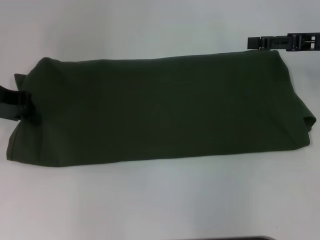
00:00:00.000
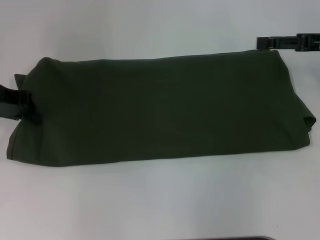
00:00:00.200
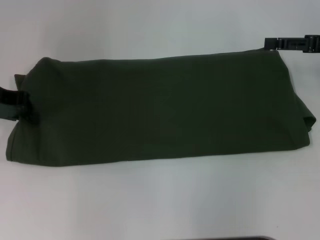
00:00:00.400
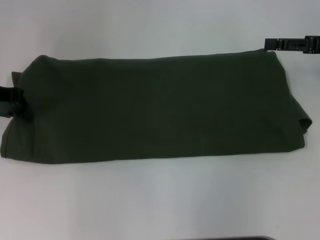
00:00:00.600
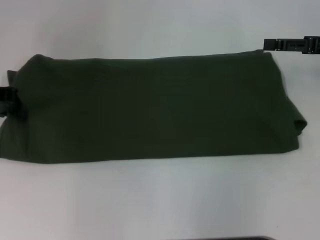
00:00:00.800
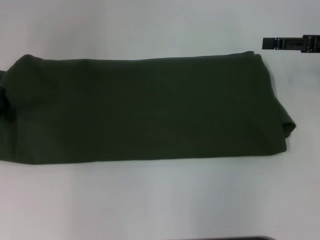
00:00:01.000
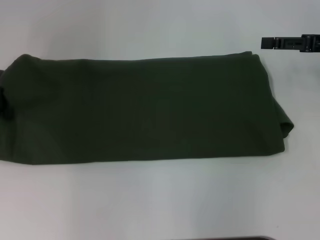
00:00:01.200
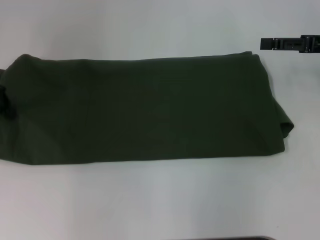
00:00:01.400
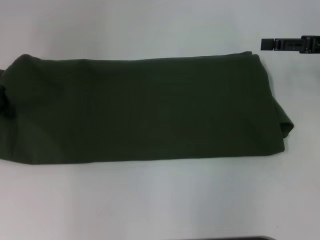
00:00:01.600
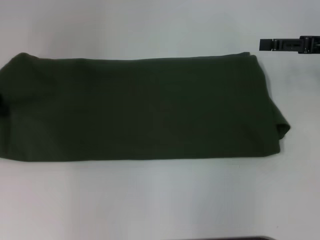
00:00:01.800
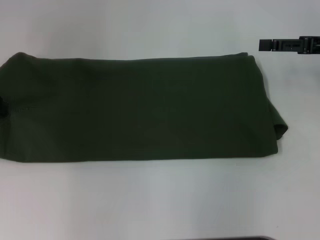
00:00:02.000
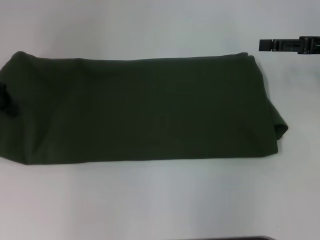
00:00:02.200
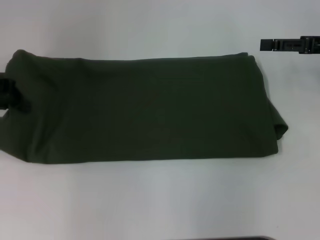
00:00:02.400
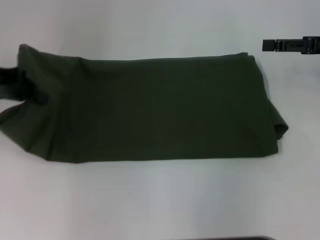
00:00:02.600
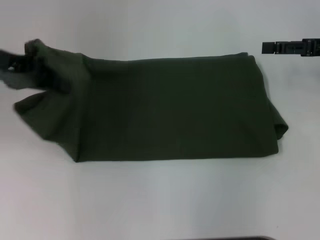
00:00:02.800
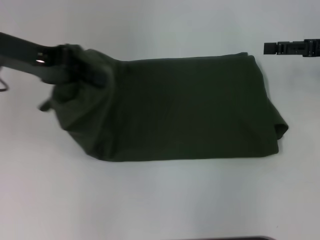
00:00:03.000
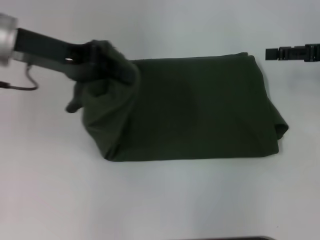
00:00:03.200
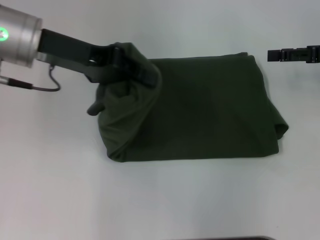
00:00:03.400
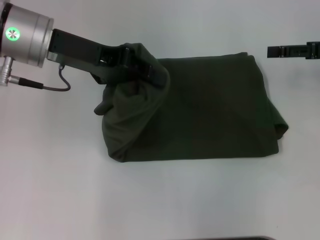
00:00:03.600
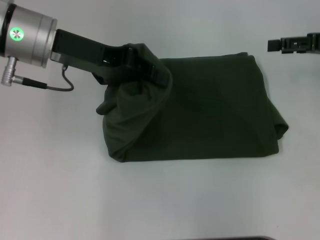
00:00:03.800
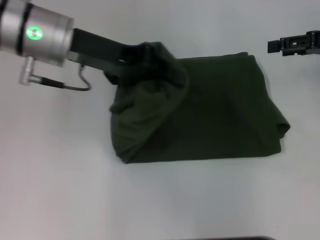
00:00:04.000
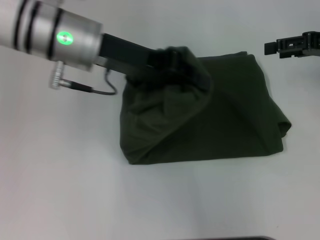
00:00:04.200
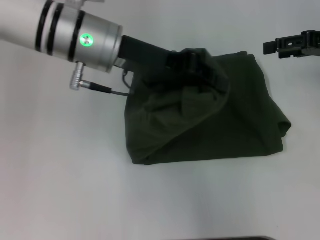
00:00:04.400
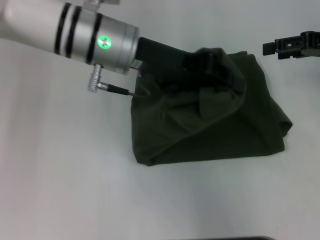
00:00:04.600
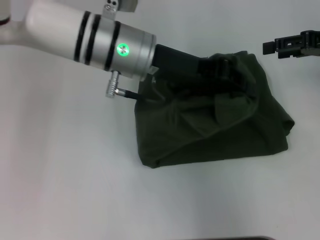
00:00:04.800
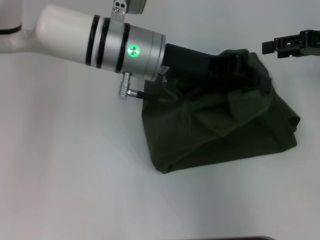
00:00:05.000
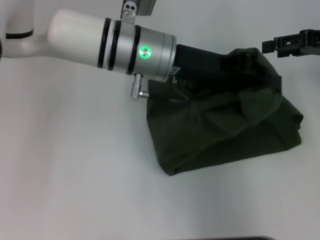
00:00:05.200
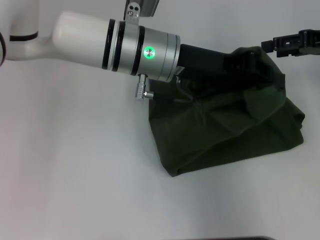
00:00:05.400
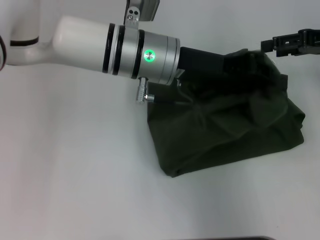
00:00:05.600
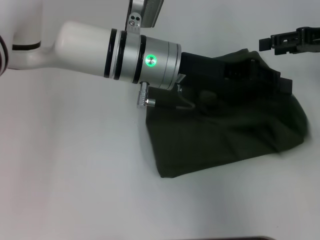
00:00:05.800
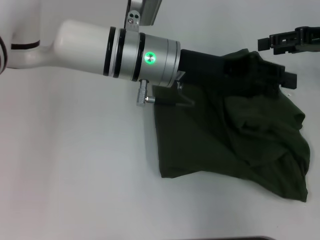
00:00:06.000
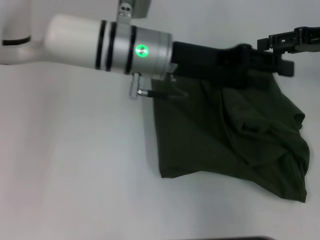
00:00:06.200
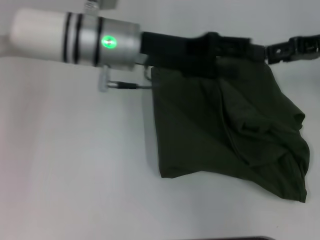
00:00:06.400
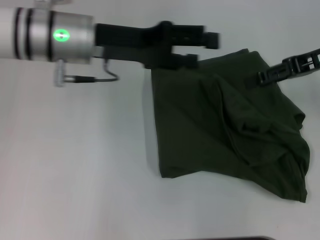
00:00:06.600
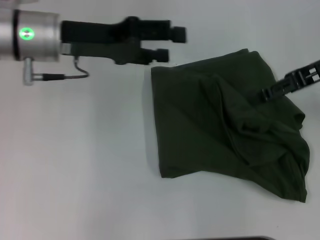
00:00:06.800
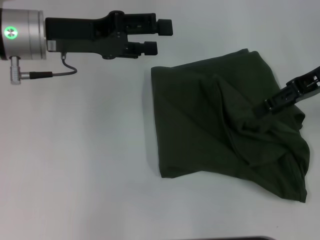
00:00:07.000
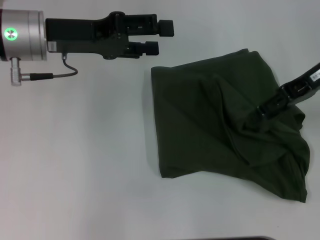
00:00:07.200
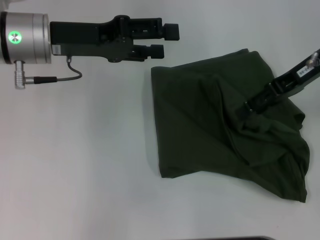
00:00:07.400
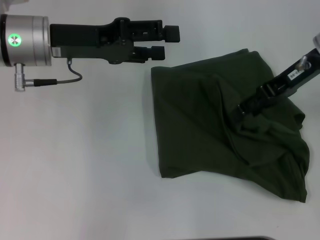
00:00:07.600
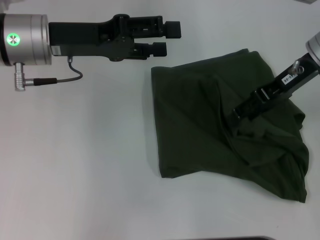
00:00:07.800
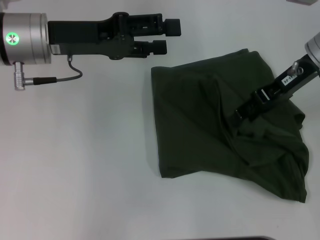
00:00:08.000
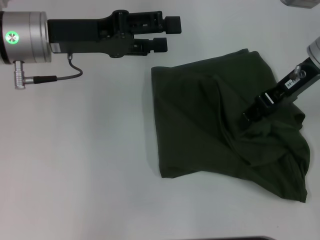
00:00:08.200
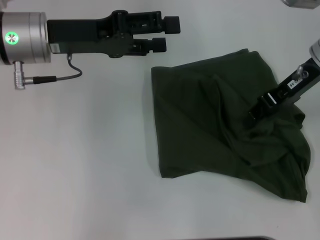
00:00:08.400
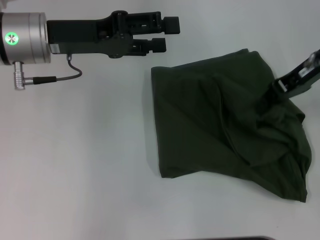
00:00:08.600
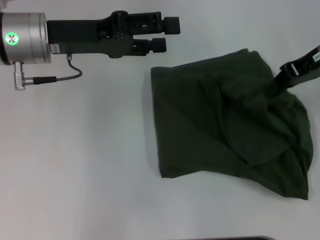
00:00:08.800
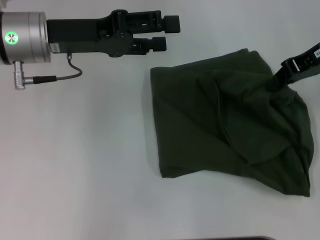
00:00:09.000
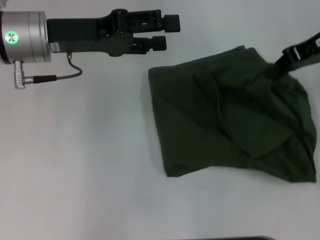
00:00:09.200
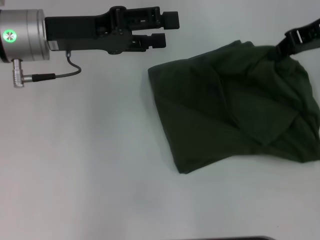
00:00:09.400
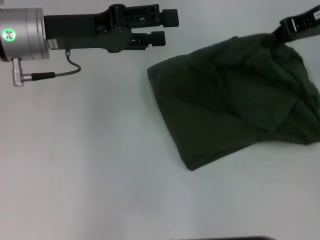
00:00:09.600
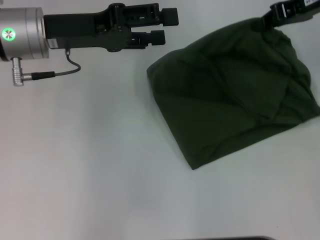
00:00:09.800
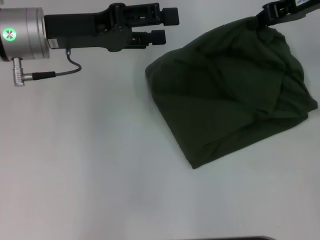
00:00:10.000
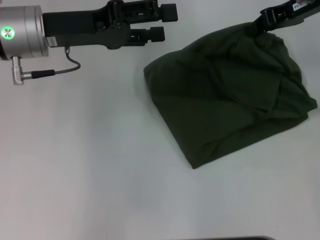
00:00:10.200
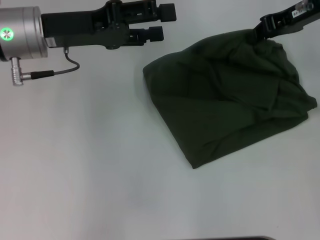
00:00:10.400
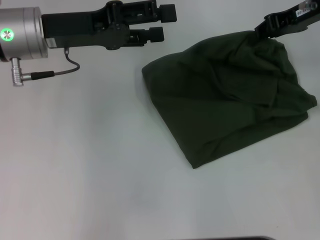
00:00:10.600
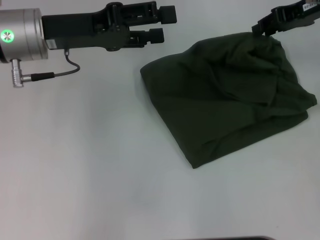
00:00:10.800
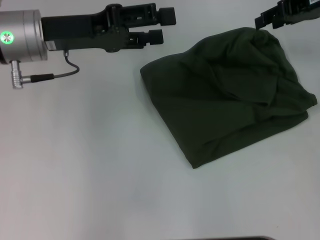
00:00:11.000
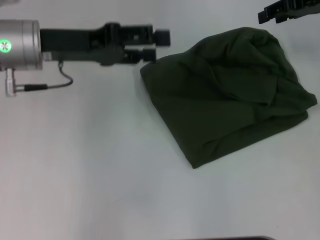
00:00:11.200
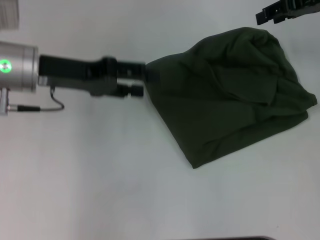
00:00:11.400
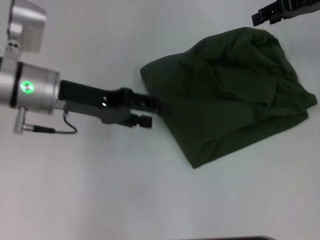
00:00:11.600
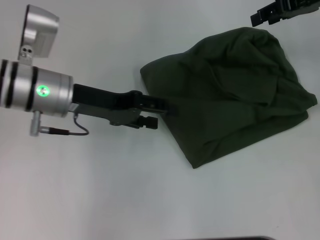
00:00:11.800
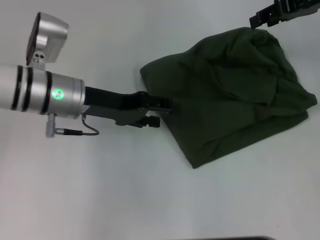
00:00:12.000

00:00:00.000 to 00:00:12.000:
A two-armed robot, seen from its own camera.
Step, 00:00:00.000 to 00:00:06.600: Fold the clothes with your left hand.
00:00:00.000 to 00:00:01.600: There are only small adjustments of the grippers.
00:00:01.600 to 00:00:03.000: The left gripper goes approximately 5 cm to the right.
00:00:03.000 to 00:00:04.400: The left gripper moves to the right, approximately 15 cm.
00:00:04.400 to 00:00:06.000: The left gripper goes some 5 cm to the right.
00:00:06.000 to 00:00:07.600: The right gripper is displaced to the left by some 10 cm. Meanwhile the left gripper goes about 15 cm to the left, and opens its fingers.
00:00:07.600 to 00:00:09.000: The right gripper closes up.
00:00:10.400 to 00:00:12.000: The right gripper opens its fingers. The left gripper moves downward, some 5 cm.

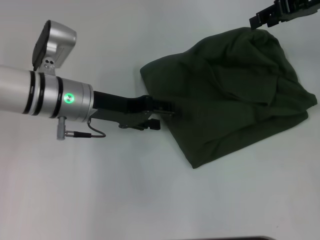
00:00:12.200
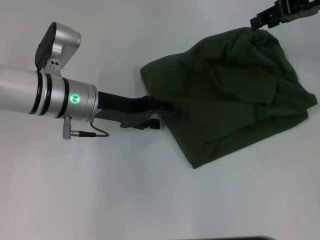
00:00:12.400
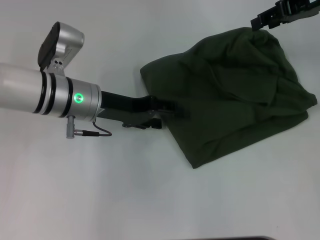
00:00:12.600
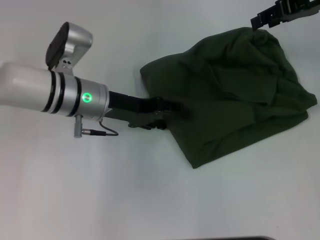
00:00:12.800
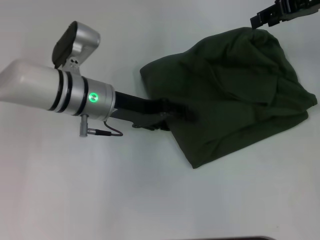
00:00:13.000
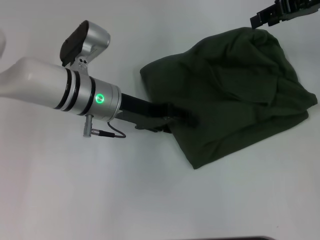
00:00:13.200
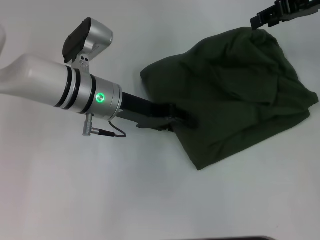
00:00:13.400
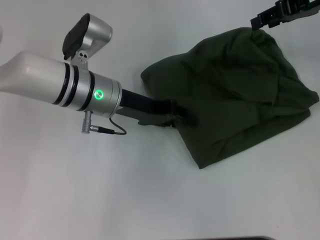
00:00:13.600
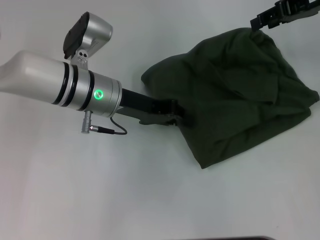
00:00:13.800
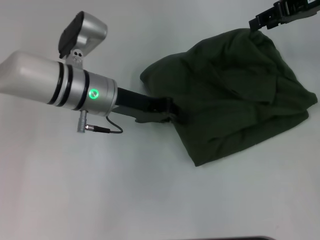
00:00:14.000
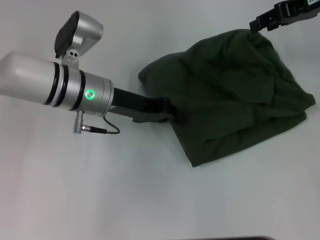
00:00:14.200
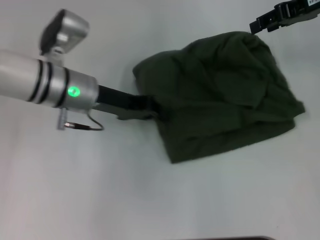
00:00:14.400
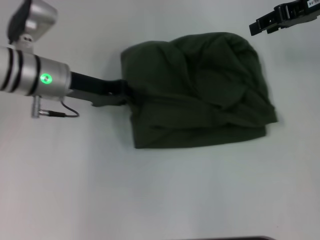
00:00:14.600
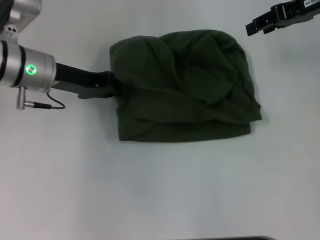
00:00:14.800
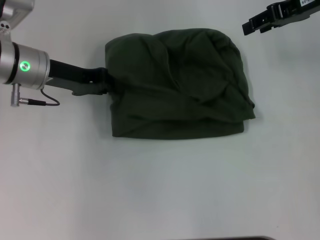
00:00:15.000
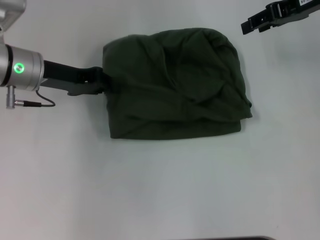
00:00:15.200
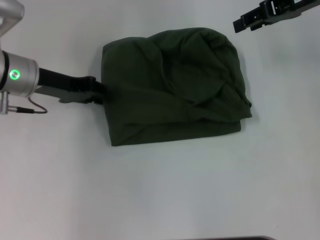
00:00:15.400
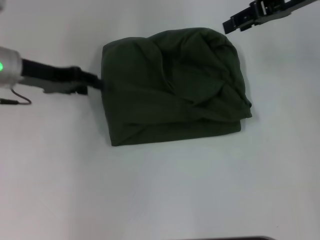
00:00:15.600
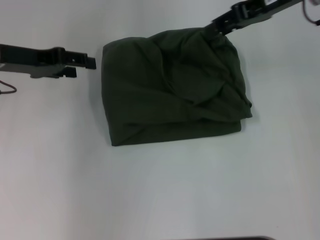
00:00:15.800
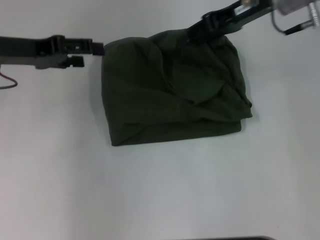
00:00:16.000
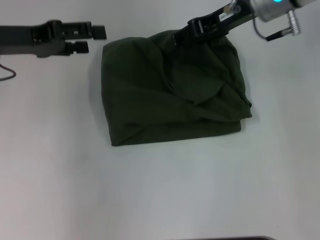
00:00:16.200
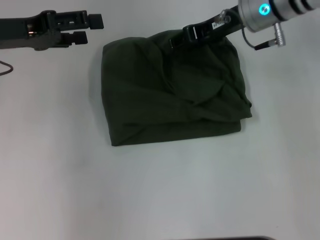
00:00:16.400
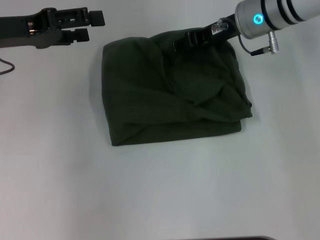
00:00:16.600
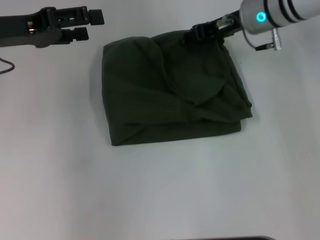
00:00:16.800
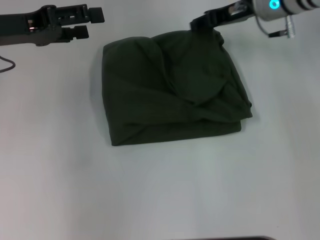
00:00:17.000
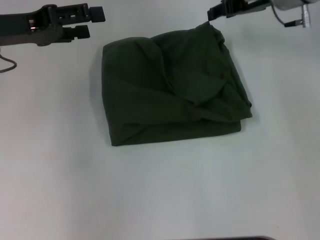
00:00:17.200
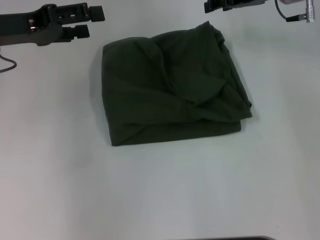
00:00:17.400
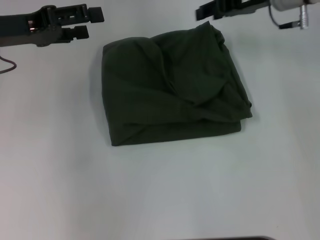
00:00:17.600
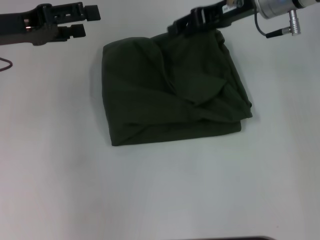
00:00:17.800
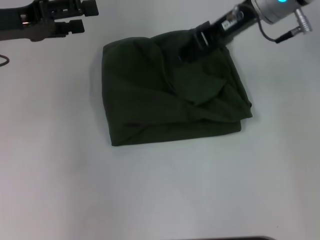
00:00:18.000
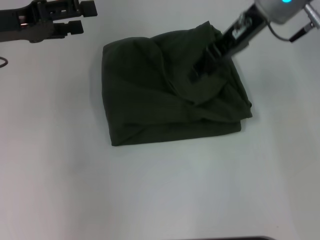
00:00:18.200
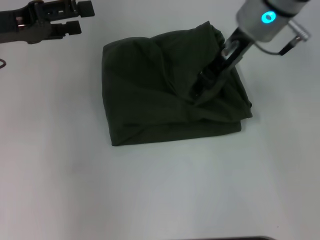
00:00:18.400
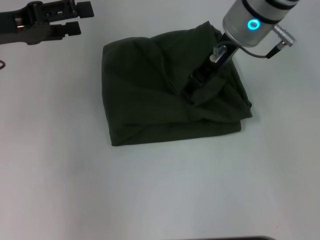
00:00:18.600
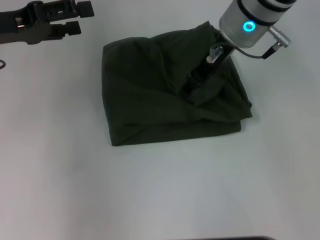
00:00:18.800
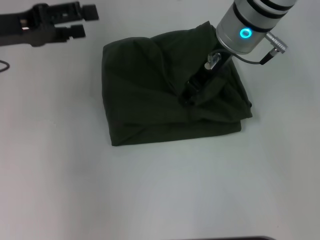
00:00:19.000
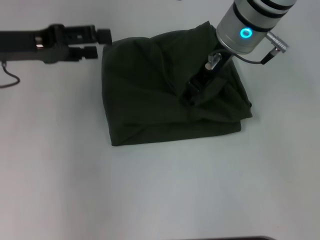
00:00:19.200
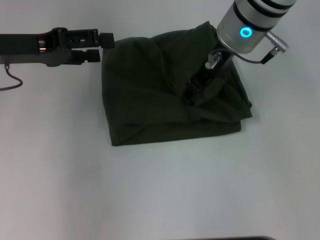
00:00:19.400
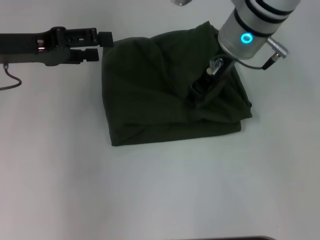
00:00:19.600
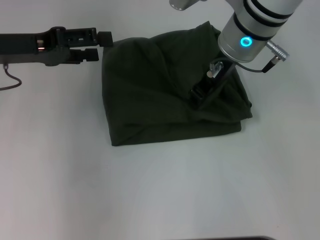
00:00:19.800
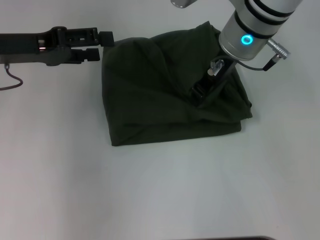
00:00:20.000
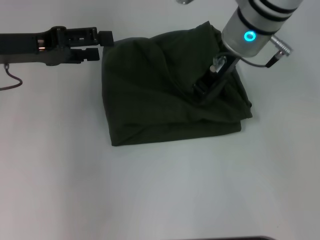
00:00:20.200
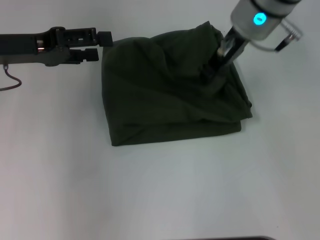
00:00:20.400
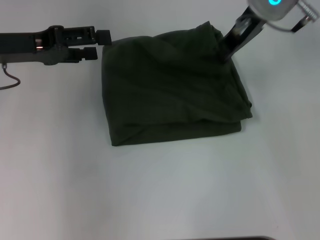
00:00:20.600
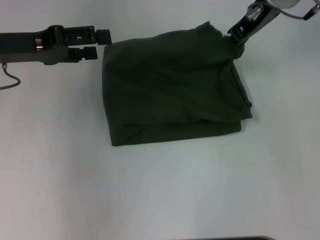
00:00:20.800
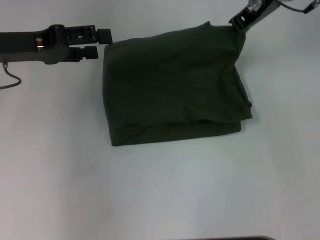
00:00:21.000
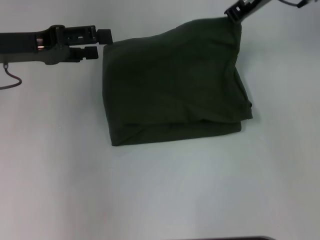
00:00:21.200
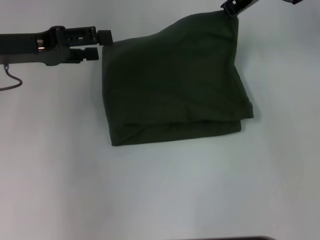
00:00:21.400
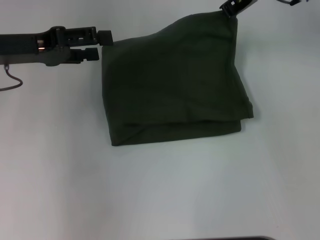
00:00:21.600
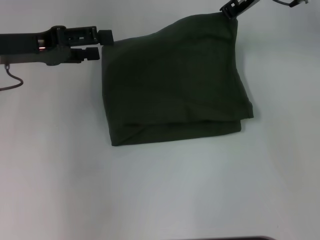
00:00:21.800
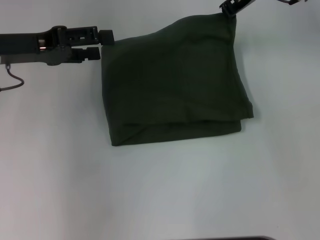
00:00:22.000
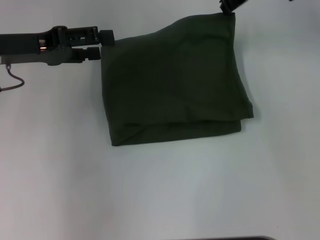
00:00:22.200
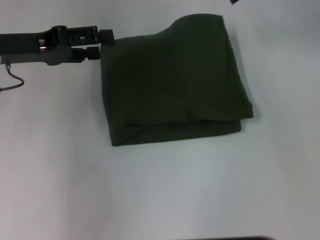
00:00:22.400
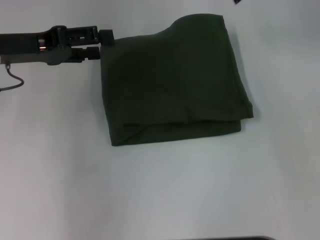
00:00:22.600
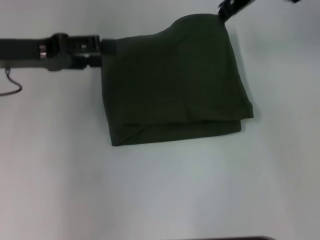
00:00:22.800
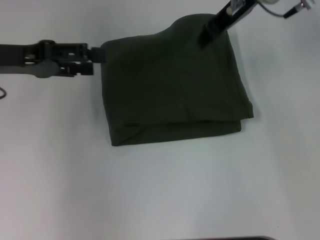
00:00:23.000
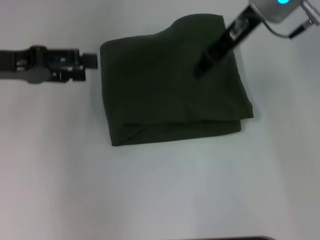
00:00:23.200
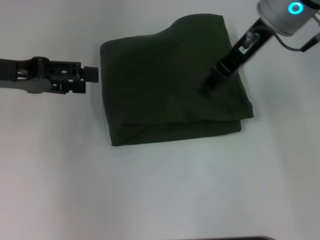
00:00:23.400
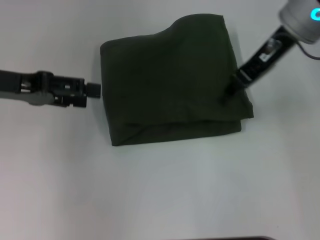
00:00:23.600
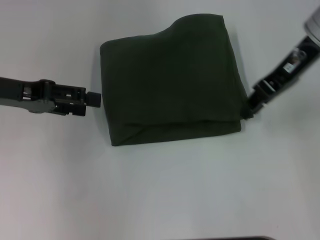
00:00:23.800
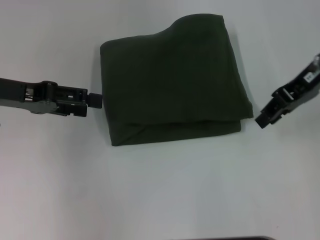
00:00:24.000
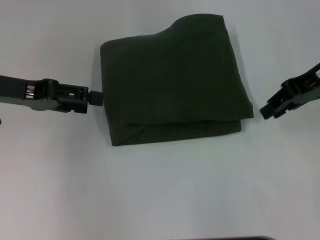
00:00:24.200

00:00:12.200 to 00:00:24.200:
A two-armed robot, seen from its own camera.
00:00:12.200 to 00:00:13.800: The left gripper closes up.
00:00:13.800 to 00:00:15.200: The left gripper travels to the left by roughly 10 cm.
00:00:15.200 to 00:00:16.600: The right gripper heads to the left and downward, covering some 10 cm, while the left gripper travels upward by roughly 5 cm, and opens its fingers.
00:00:16.600 to 00:00:18.200: The right gripper heads upward, covering about 5 cm.
00:00:18.200 to 00:00:19.800: The right gripper ends up approximately 5 cm from where it was.
00:00:19.800 to 00:00:21.200: The right gripper ends up roughly 10 cm from where it was.
00:00:21.200 to 00:00:22.600: The grippers move only a little.
00:00:22.600 to 00:00:24.200: The right gripper shifts some 15 cm to the right and backward.
